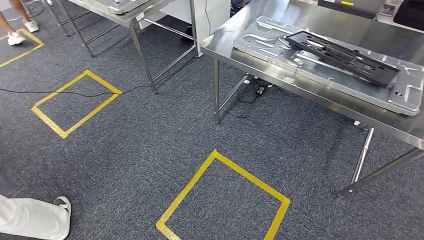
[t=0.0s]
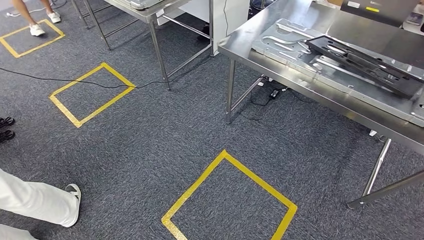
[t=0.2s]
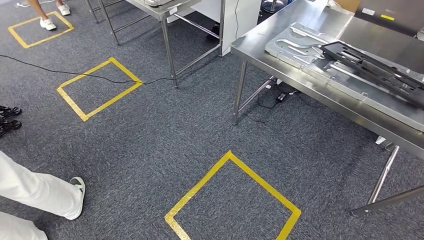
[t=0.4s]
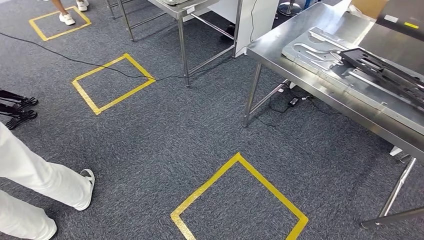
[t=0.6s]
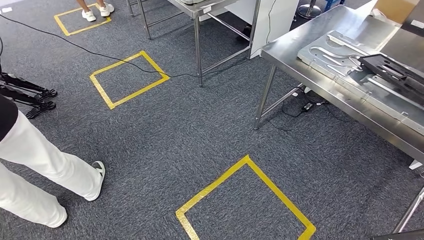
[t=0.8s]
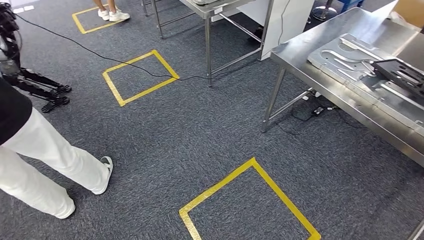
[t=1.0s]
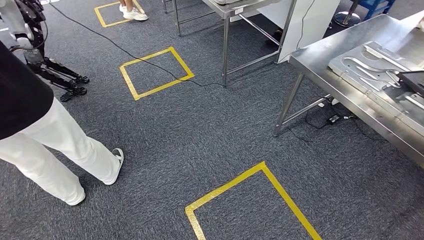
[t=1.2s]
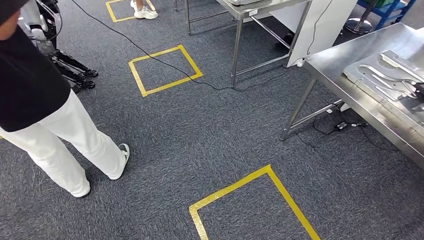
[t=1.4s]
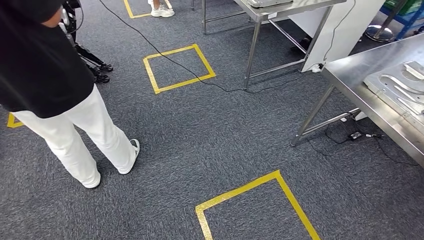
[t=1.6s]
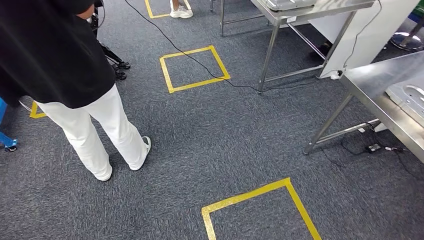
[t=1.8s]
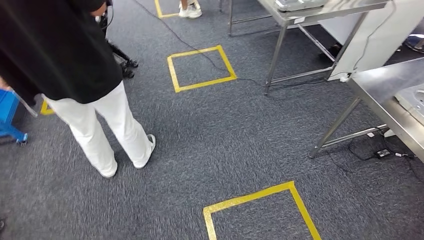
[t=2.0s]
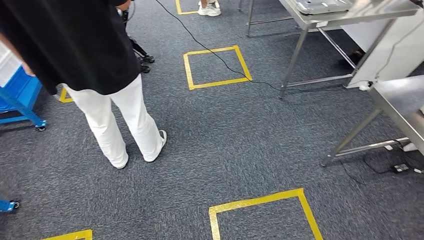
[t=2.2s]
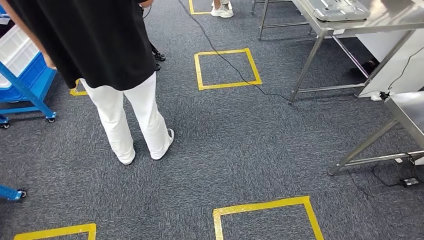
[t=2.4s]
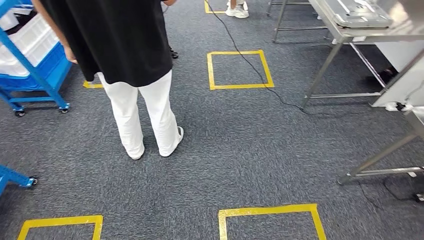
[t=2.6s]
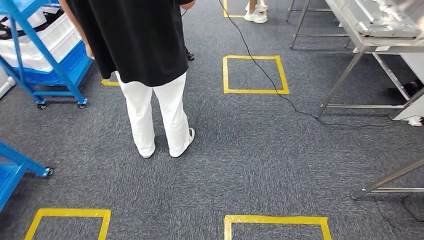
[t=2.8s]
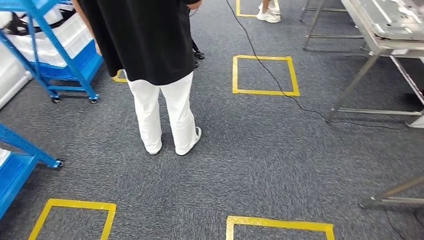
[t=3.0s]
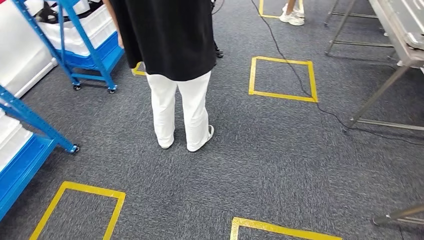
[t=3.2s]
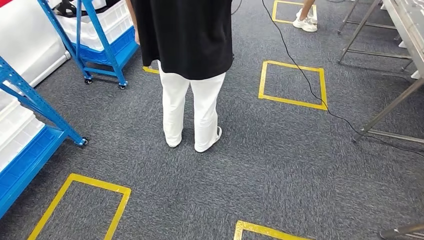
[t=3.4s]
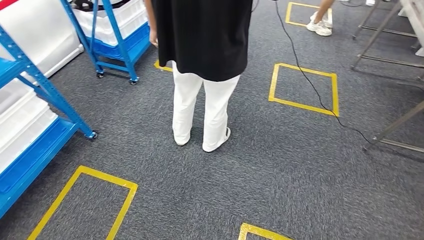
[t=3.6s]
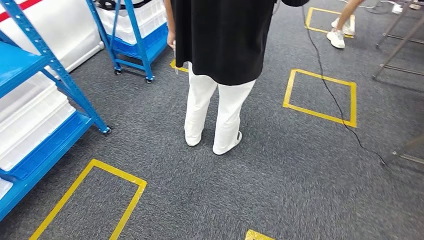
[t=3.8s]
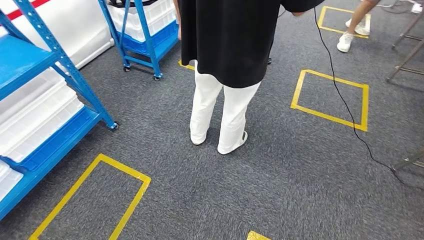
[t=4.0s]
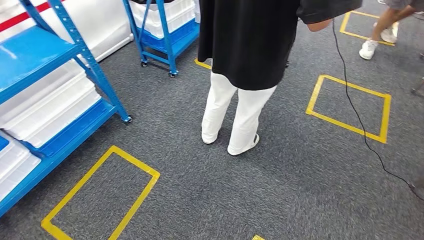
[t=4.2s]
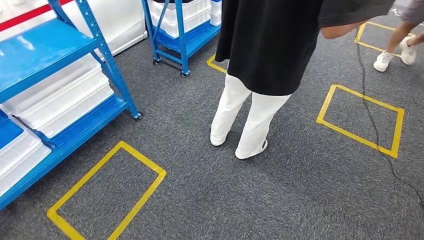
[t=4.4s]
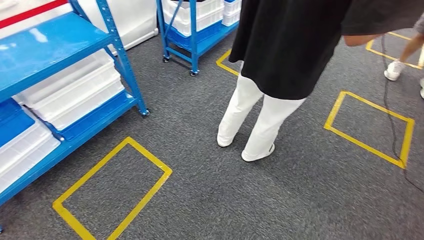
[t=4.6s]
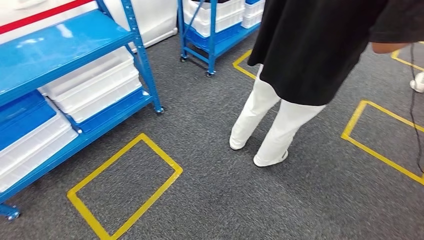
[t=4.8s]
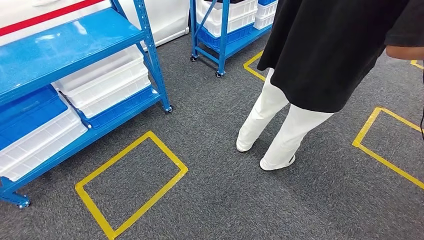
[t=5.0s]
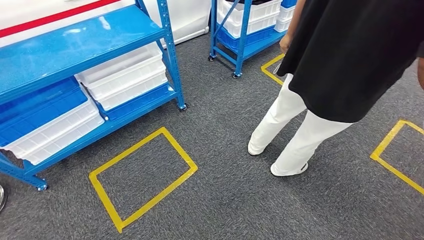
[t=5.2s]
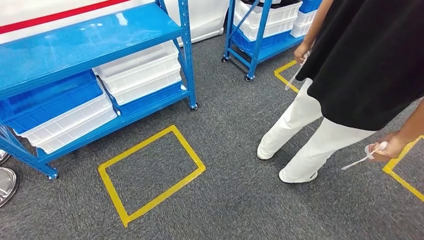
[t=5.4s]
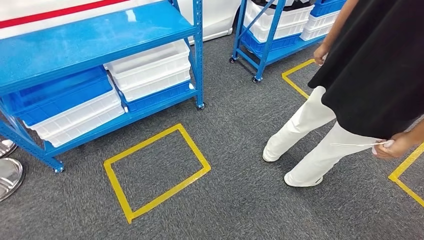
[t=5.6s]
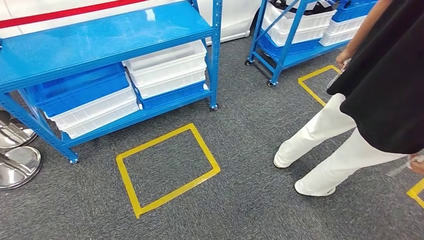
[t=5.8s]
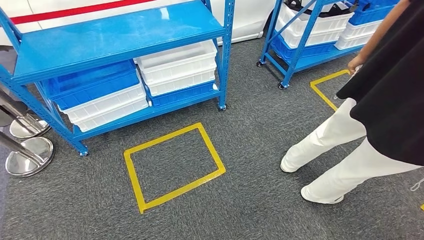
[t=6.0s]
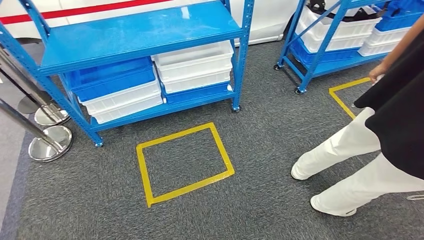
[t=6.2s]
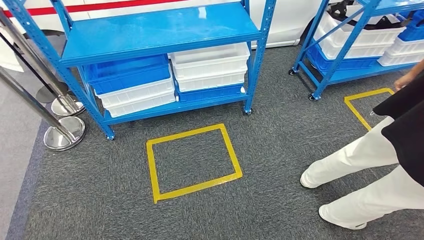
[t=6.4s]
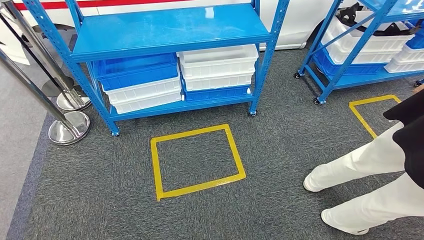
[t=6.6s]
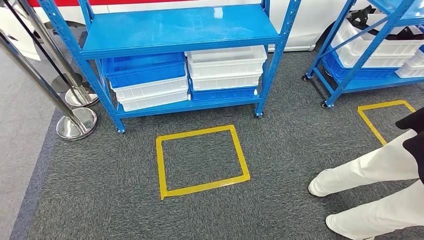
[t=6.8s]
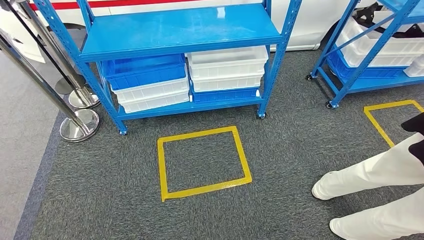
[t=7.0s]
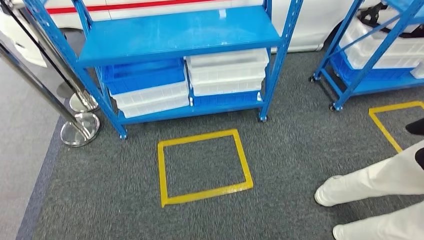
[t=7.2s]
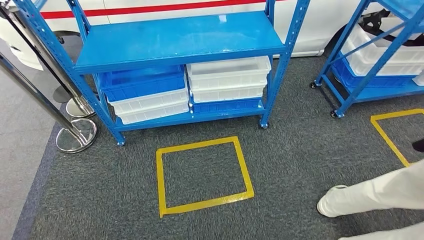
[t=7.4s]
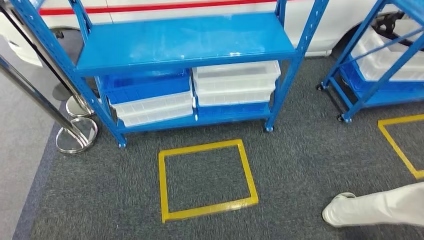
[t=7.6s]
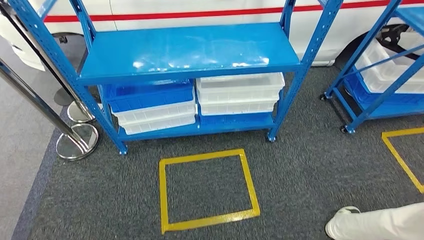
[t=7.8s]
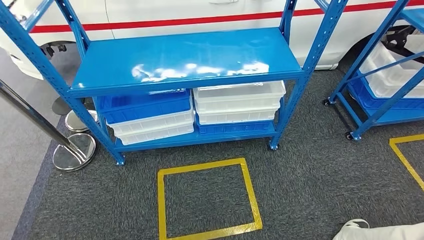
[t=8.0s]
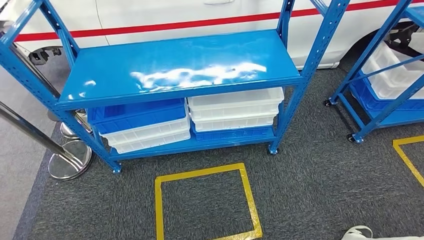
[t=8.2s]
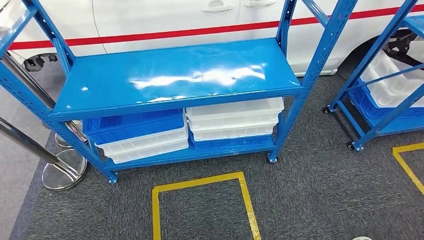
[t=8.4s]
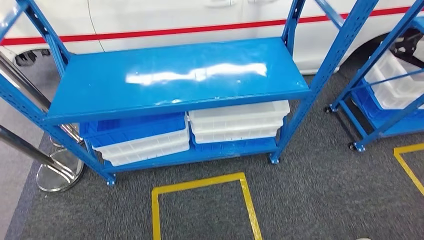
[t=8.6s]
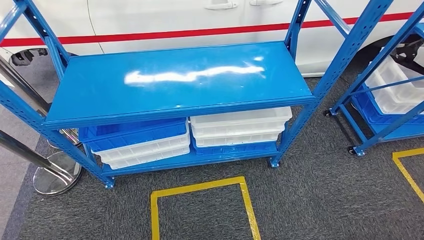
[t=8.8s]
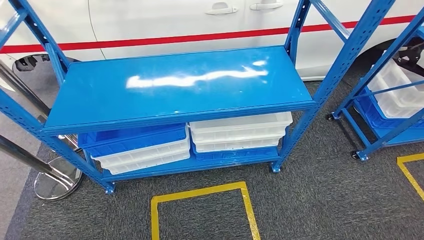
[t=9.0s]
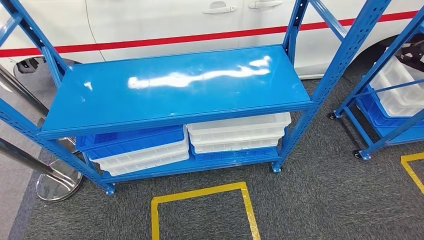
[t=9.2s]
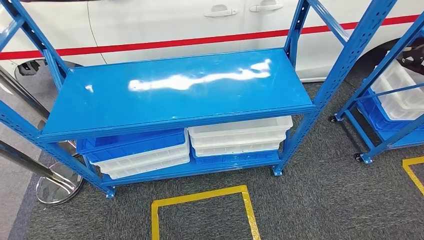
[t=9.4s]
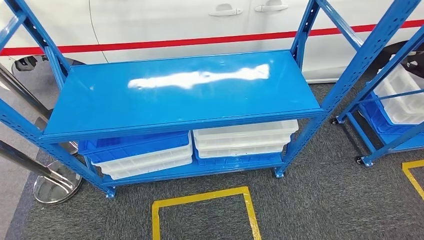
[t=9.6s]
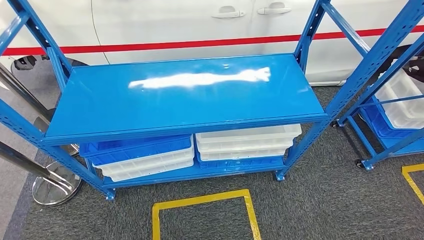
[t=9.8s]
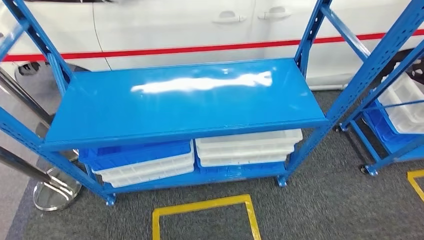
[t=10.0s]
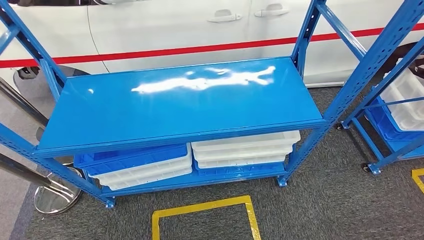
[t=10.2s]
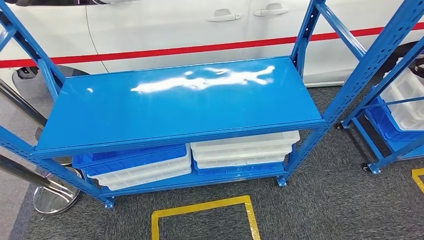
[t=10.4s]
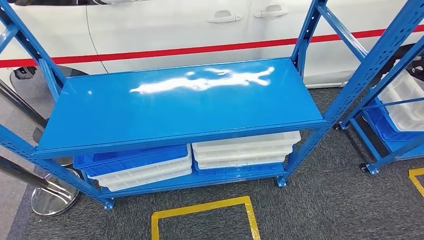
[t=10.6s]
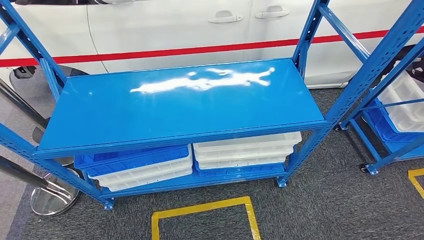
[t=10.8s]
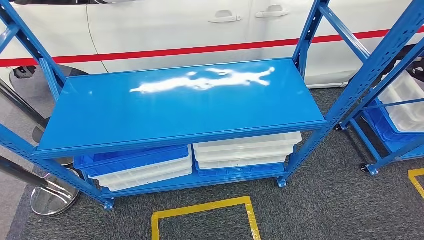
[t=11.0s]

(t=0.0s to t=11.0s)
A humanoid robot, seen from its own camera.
Step, t=6.6s - t=10.8s: Move to the initial position of the shelf.
